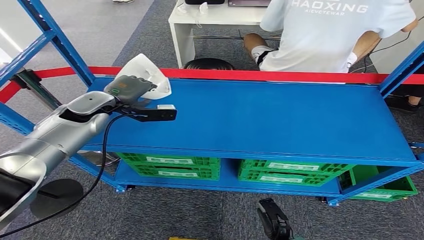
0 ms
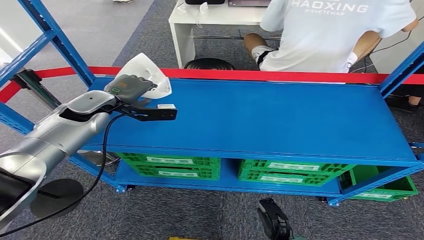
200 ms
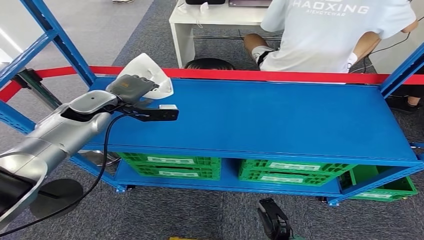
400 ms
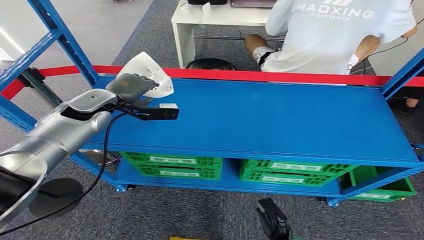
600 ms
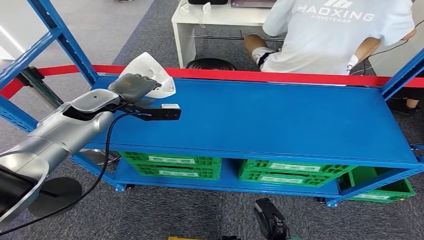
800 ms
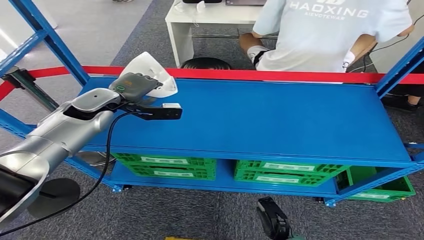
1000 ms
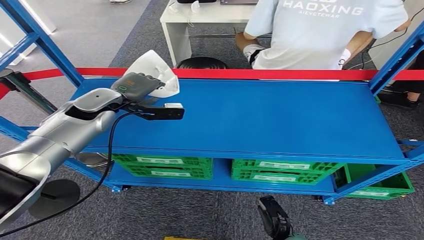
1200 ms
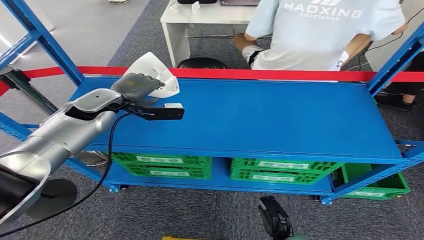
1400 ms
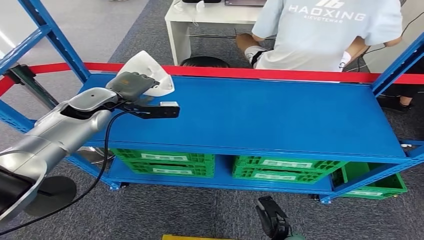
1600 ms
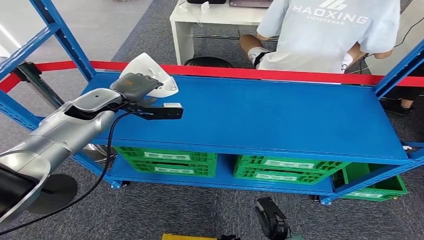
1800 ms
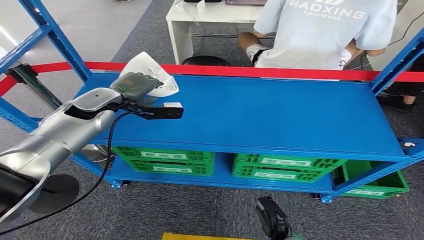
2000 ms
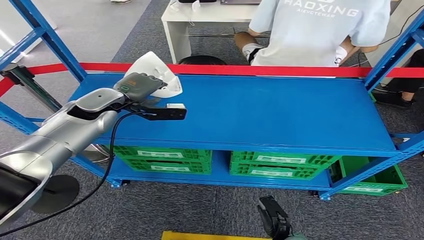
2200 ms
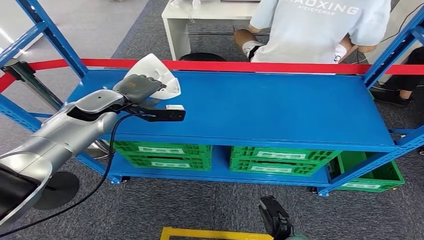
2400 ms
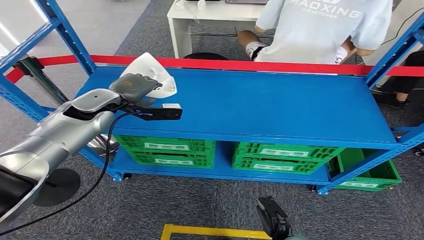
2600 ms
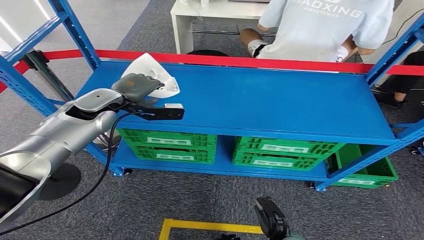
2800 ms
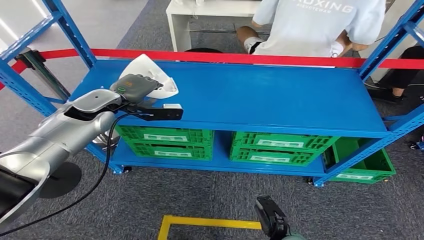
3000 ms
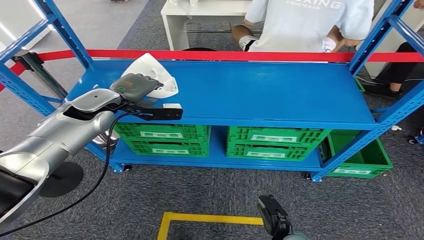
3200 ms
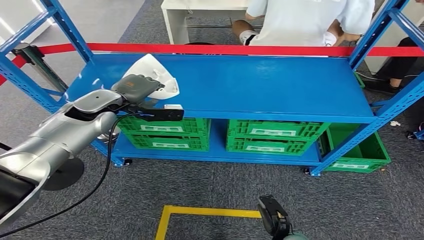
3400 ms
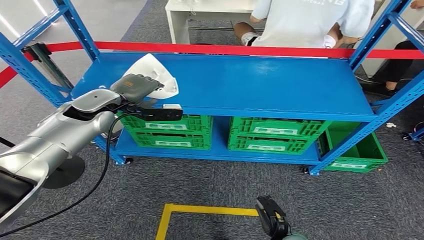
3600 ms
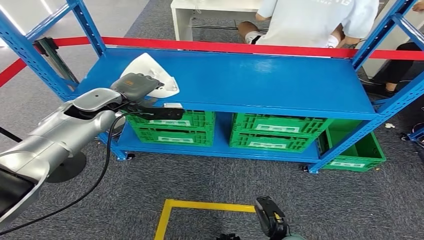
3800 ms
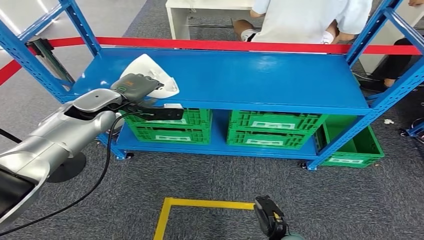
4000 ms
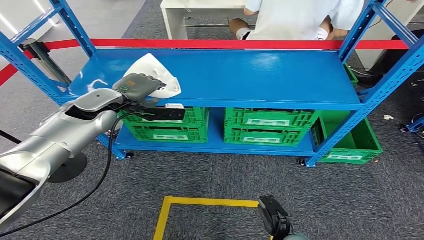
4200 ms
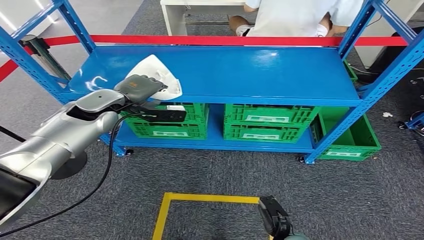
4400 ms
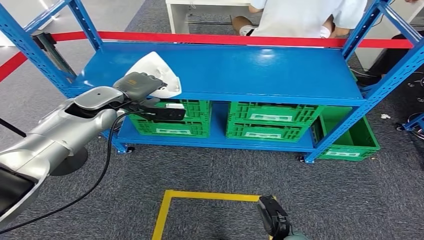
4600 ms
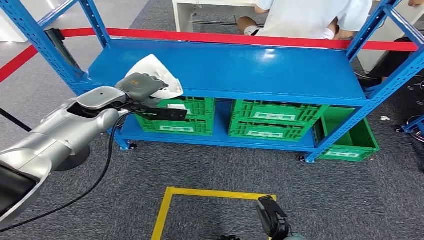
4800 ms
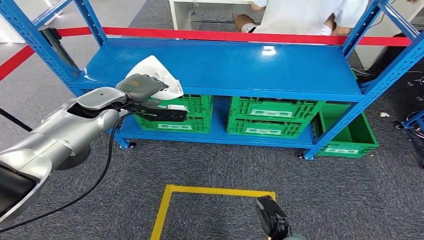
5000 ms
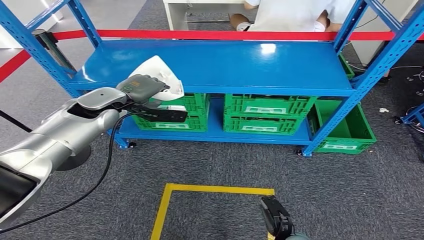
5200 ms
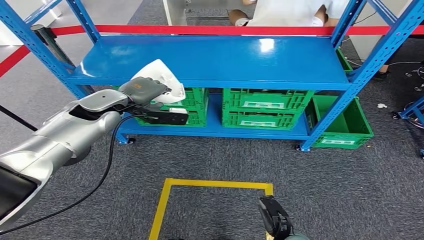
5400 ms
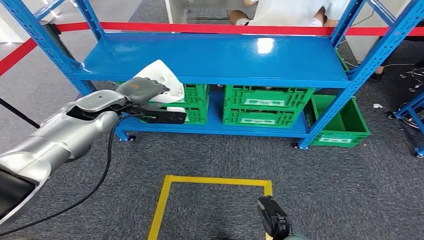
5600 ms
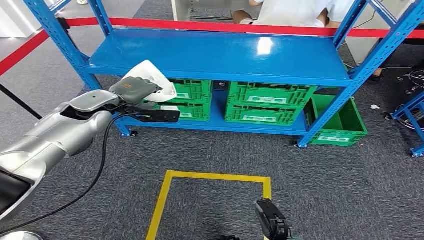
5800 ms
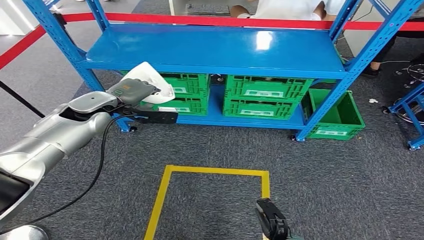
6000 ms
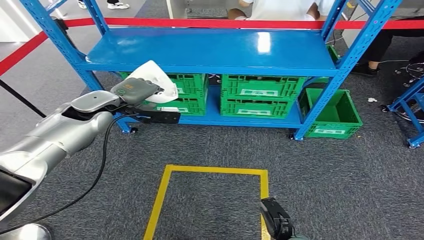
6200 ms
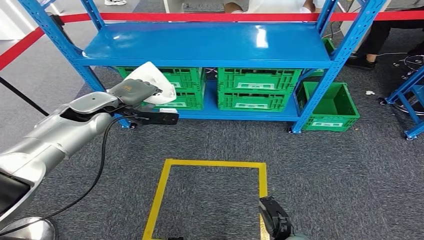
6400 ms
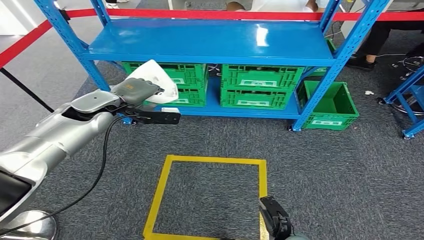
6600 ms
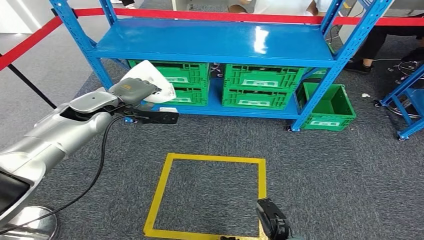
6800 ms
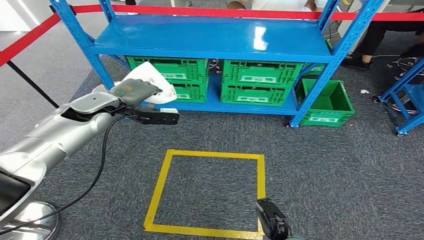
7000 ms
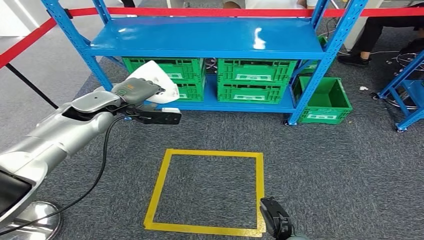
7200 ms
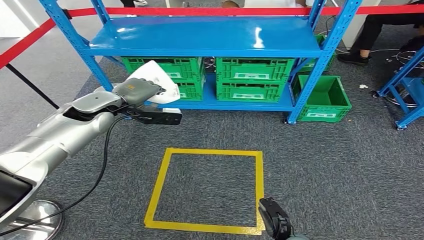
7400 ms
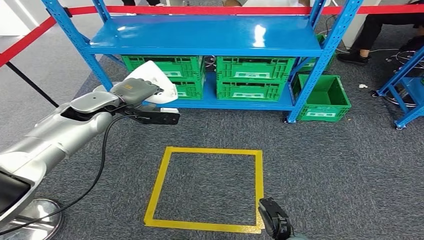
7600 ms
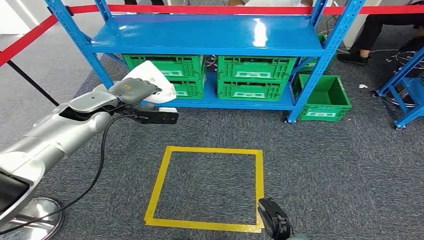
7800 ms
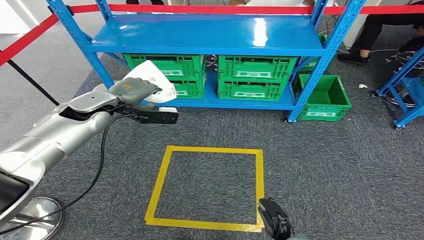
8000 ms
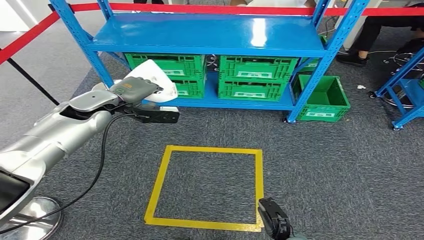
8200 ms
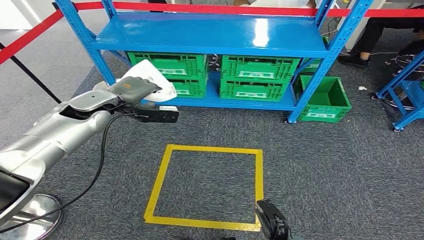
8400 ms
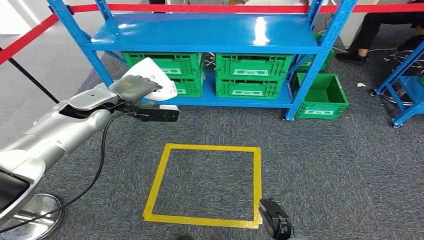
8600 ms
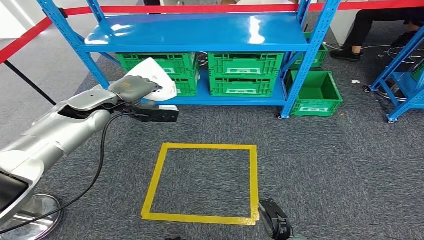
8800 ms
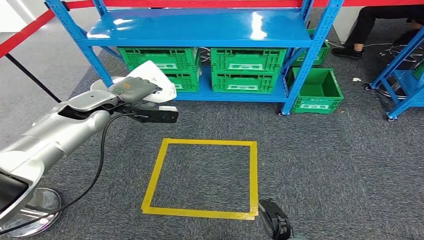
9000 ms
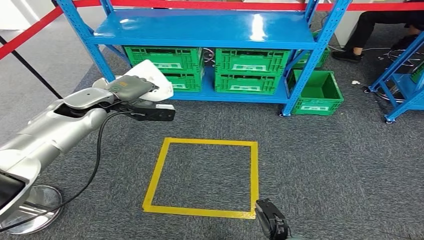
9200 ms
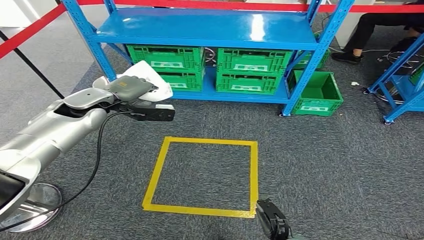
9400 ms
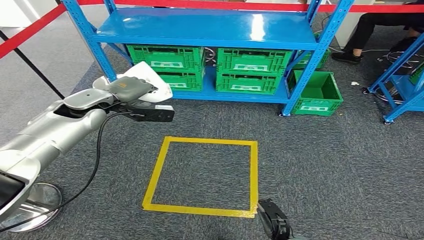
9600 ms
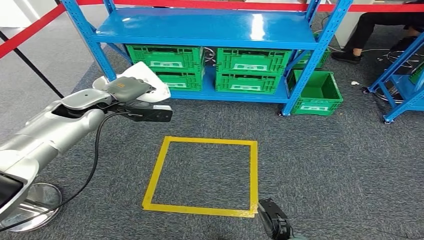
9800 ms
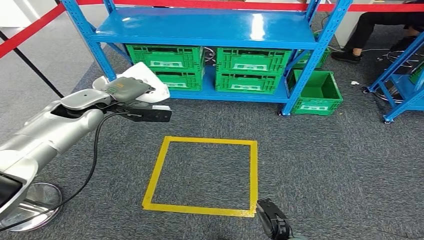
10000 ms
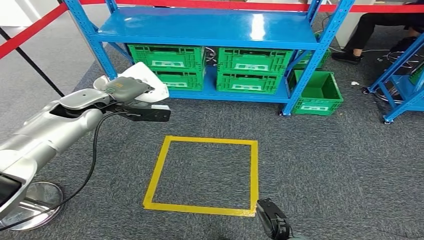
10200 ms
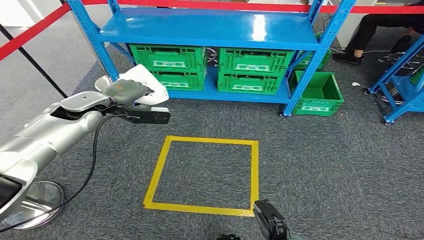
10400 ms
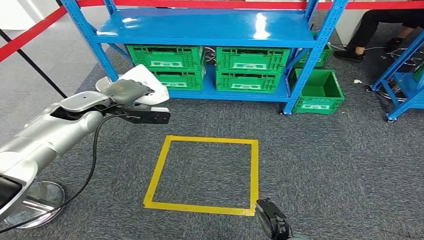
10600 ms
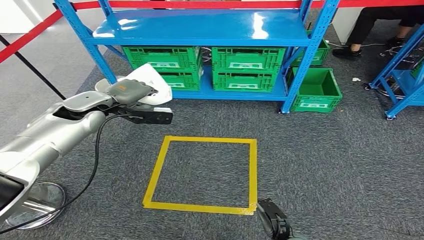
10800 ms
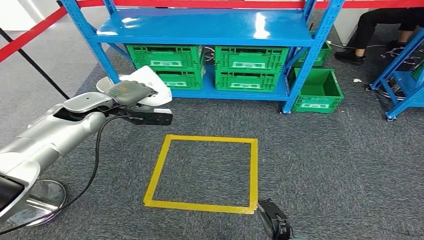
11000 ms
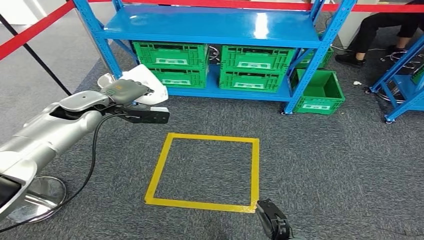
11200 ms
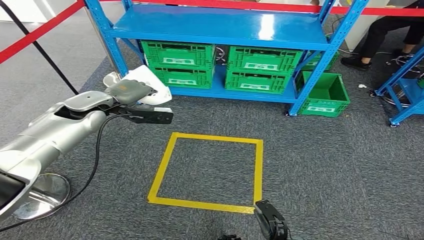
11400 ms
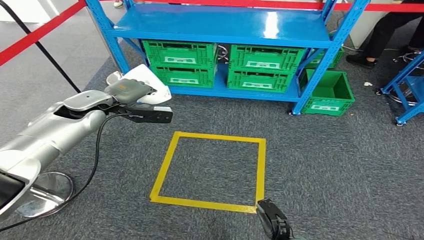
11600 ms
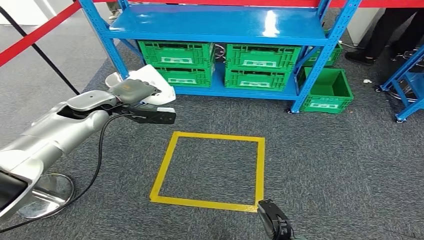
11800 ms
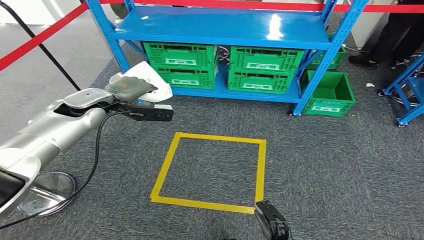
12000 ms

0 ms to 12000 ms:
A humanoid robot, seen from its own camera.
Step, 0 ms to 2200 ms: Pick up the small parts from the shelf.

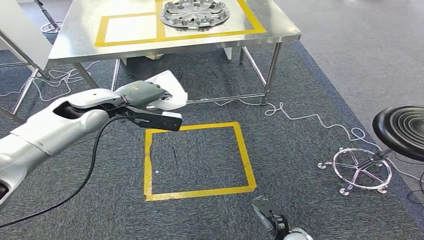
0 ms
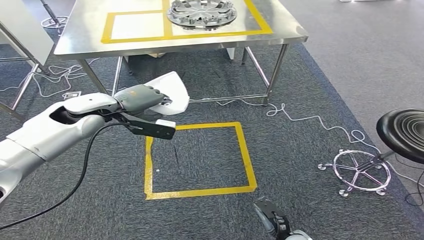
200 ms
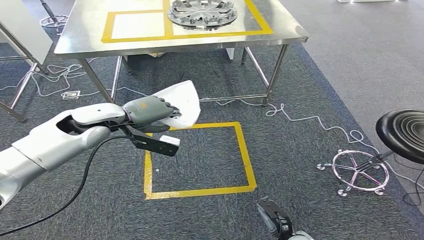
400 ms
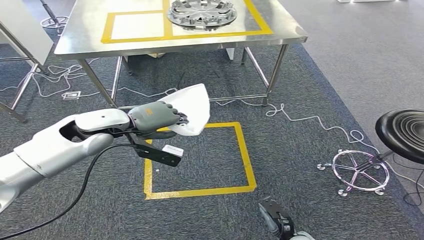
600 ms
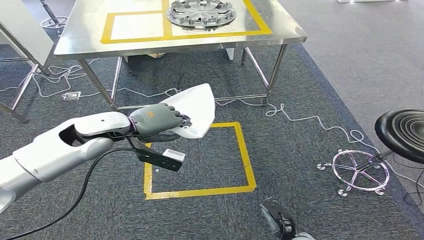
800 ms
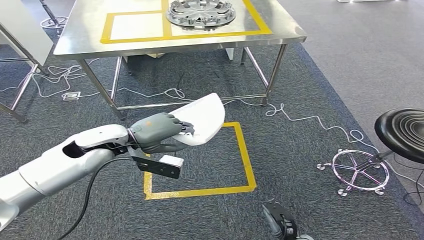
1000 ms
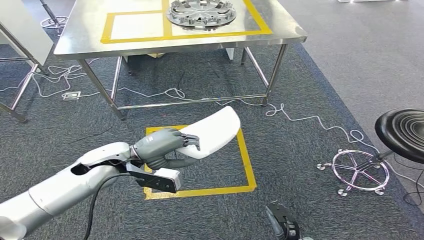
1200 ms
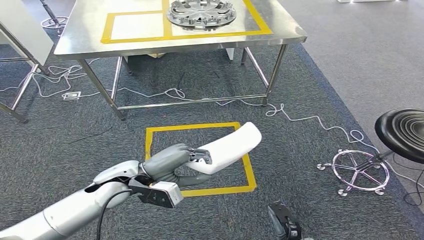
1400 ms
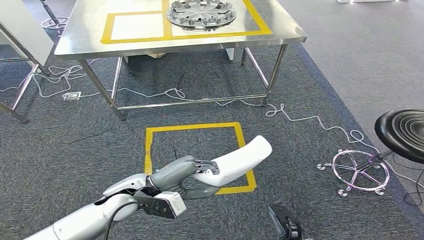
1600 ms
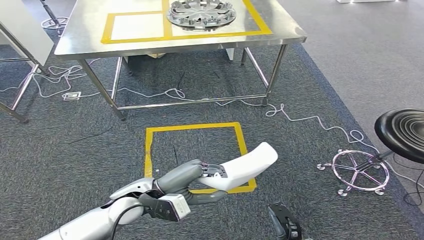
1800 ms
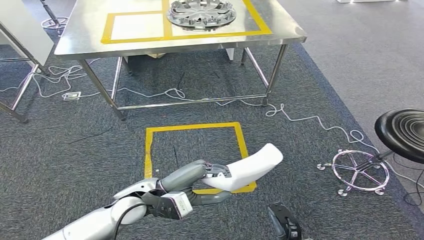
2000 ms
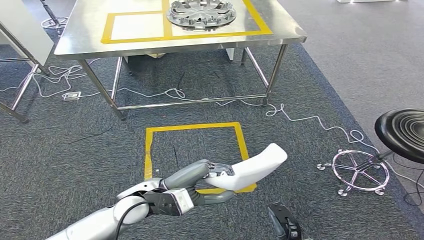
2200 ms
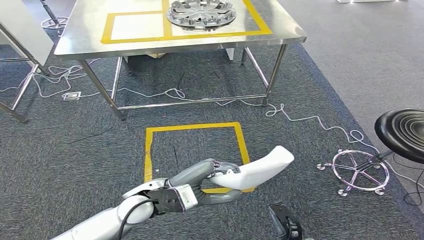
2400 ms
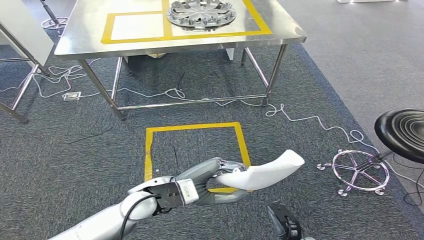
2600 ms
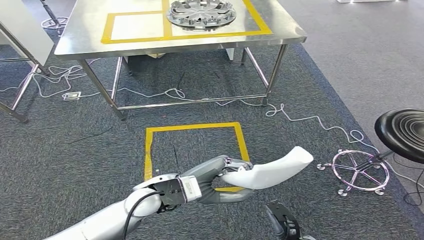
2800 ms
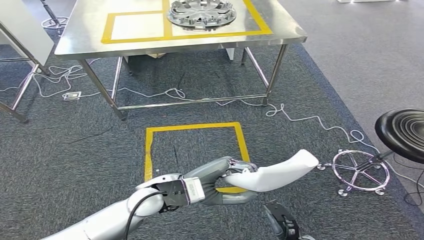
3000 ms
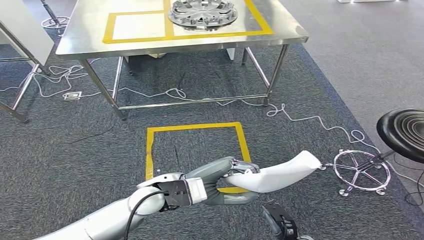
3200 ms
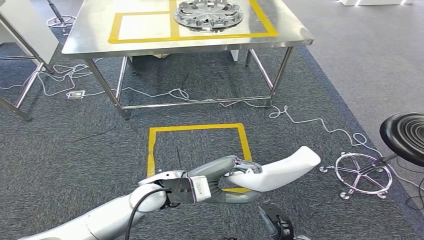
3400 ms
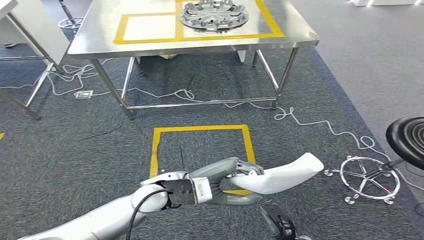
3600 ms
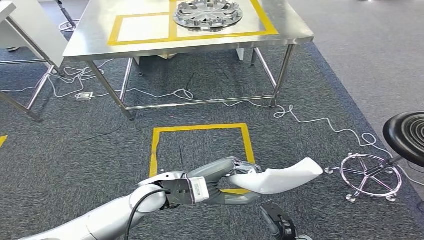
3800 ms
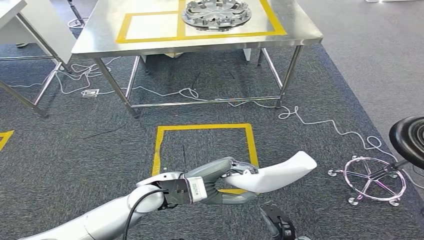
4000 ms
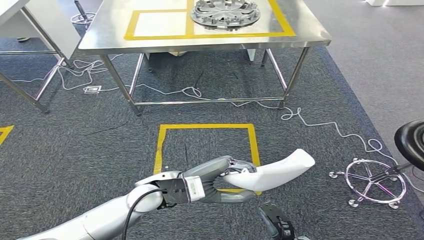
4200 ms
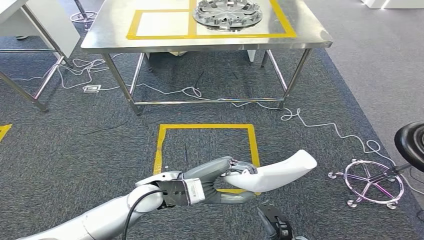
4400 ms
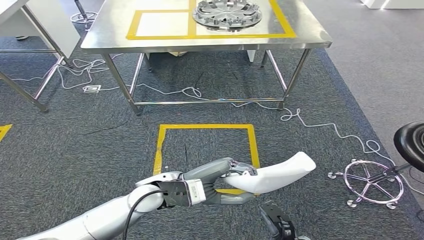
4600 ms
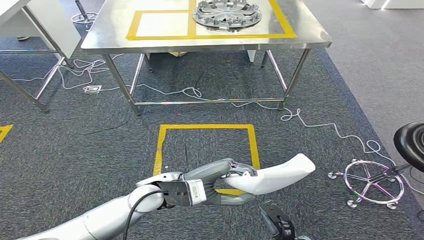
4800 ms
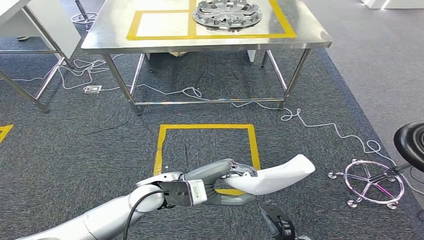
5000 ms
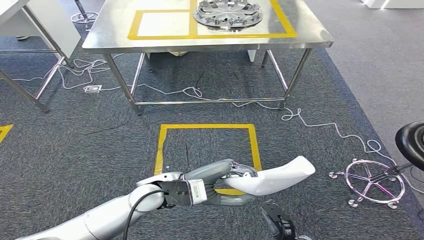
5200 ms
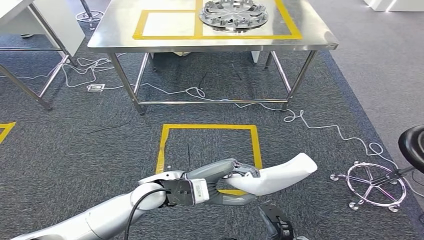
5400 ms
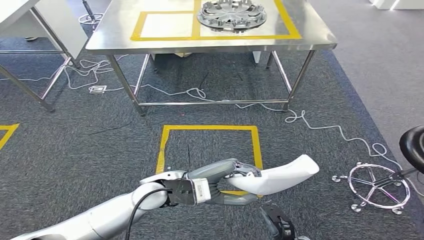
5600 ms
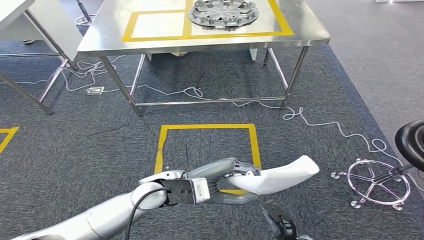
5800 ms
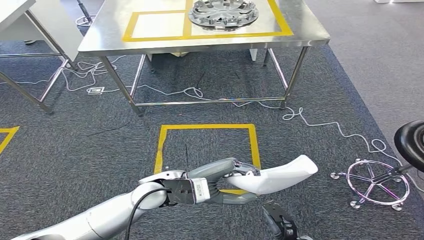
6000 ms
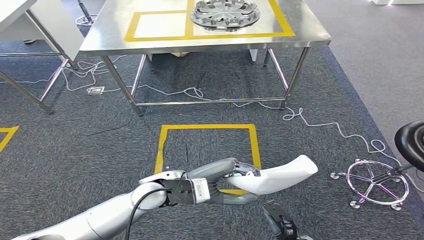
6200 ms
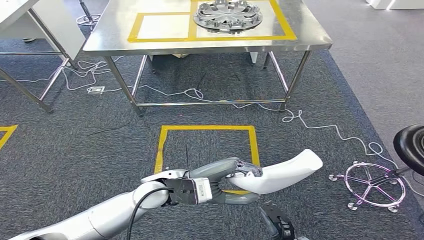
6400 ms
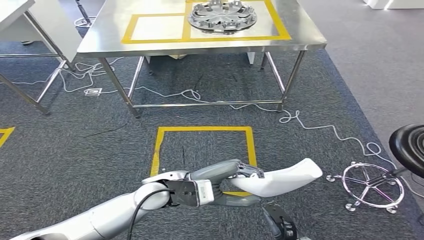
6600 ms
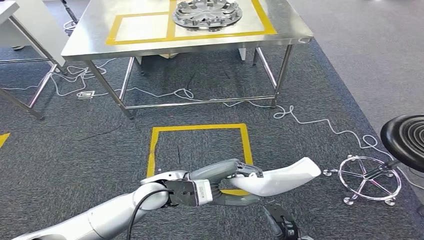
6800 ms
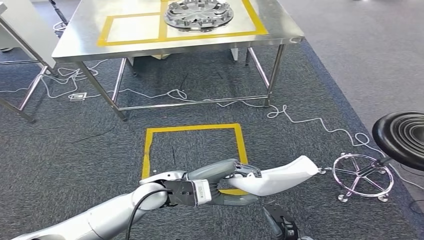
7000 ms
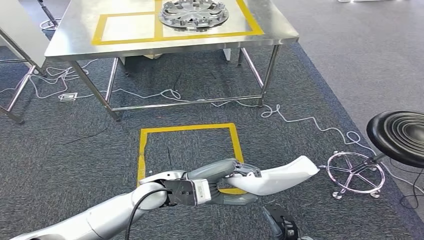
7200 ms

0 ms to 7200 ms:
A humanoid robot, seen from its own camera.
1400 ms to 2800 ms: The left hand travels to the right by about 10 cm.
4400 ms to 5800 ms: Both hands stay about where they are.
